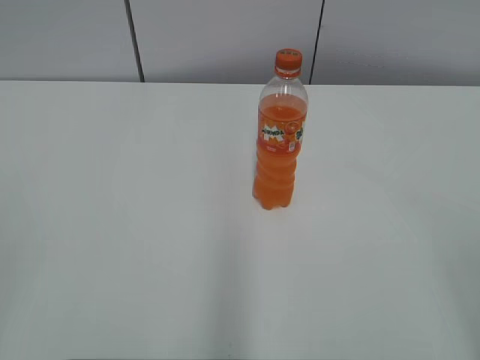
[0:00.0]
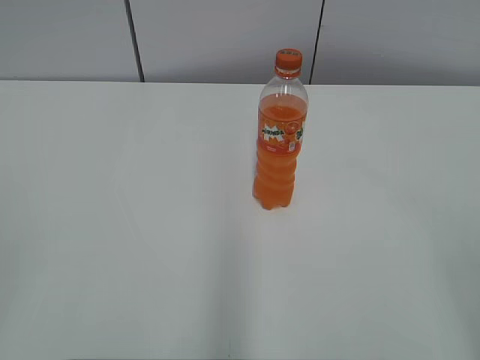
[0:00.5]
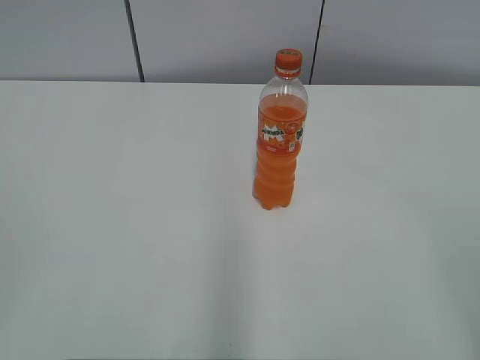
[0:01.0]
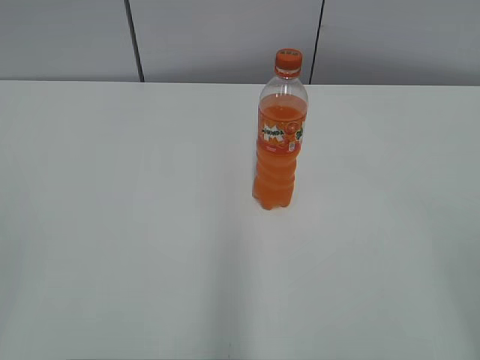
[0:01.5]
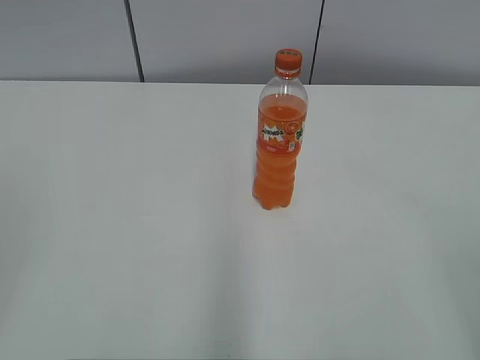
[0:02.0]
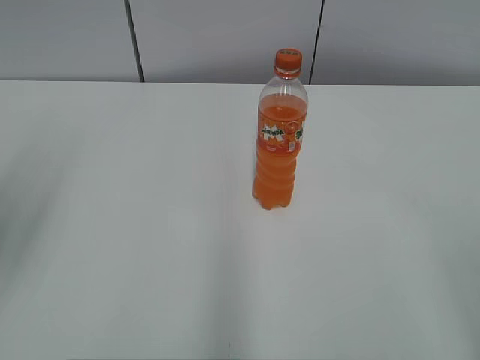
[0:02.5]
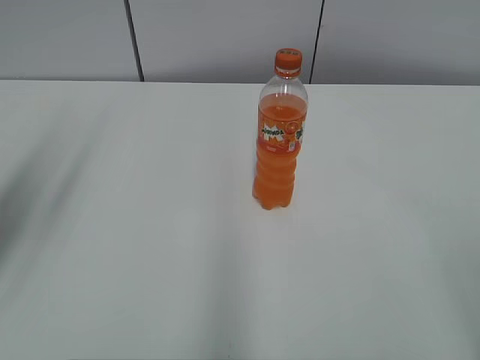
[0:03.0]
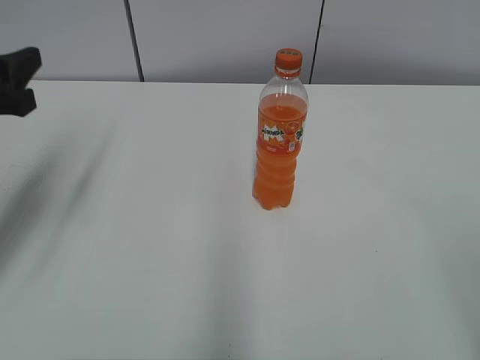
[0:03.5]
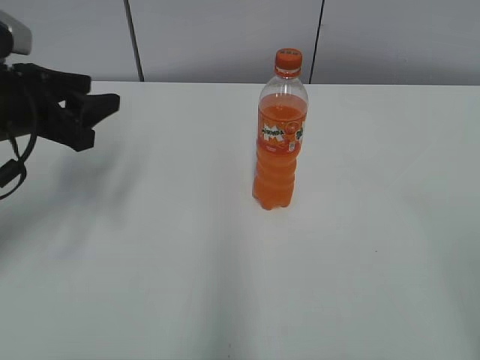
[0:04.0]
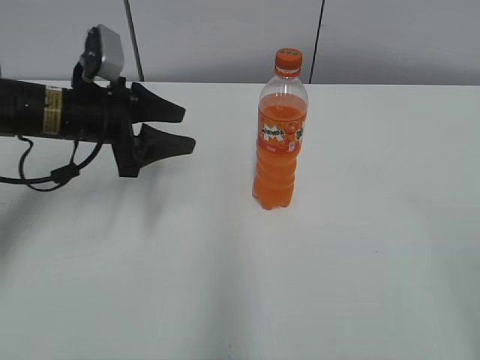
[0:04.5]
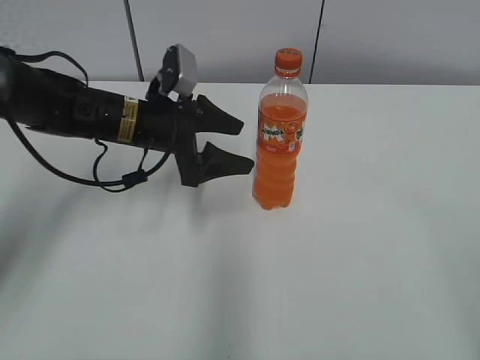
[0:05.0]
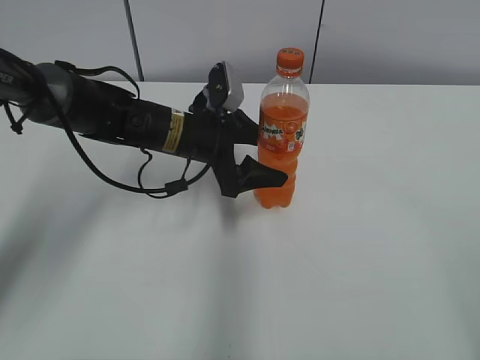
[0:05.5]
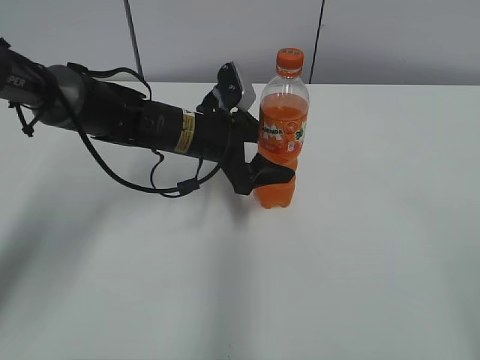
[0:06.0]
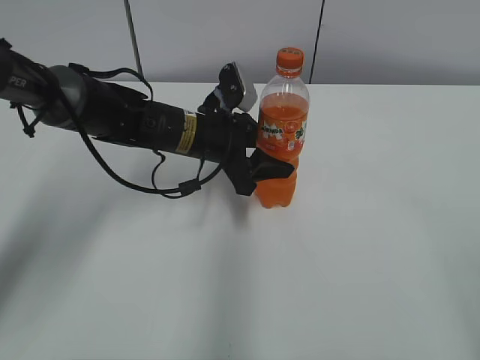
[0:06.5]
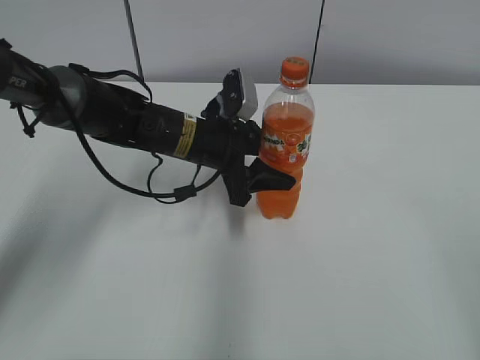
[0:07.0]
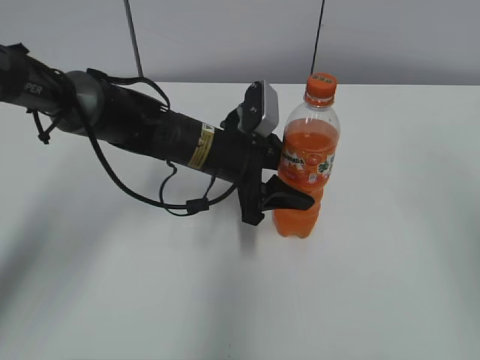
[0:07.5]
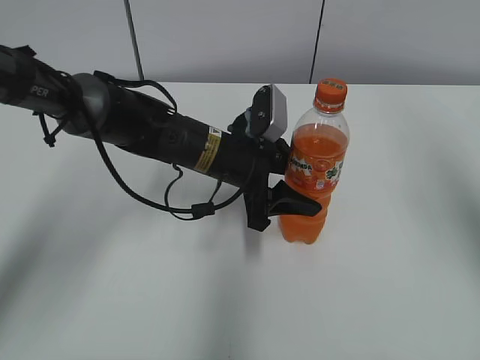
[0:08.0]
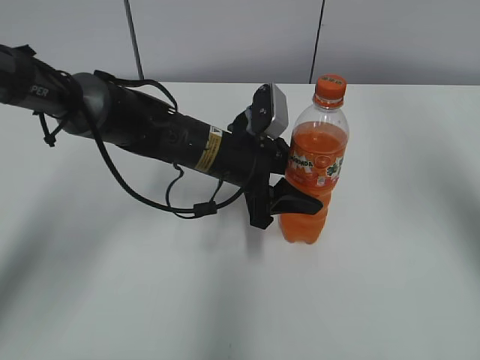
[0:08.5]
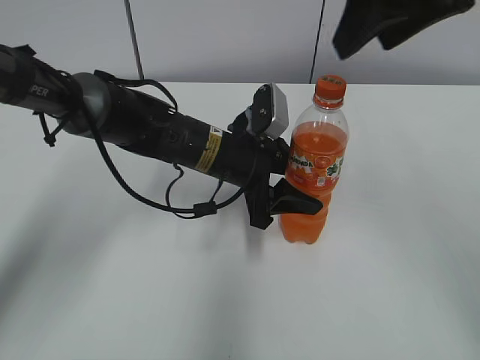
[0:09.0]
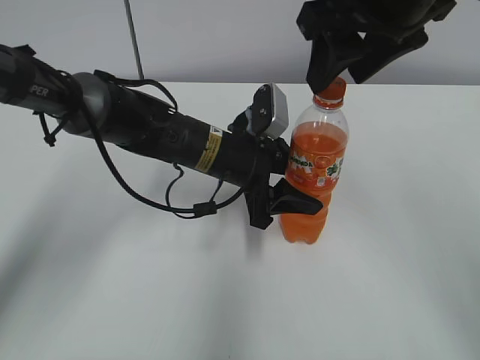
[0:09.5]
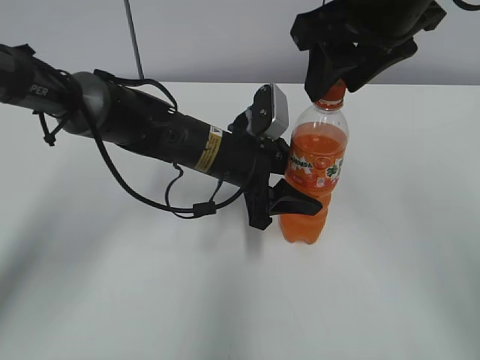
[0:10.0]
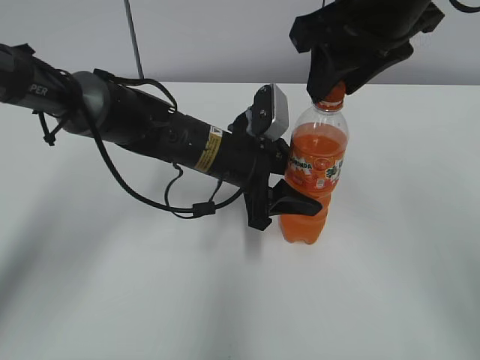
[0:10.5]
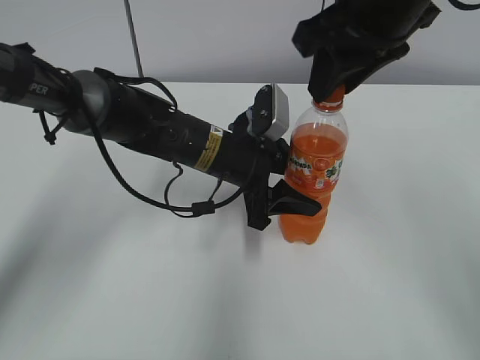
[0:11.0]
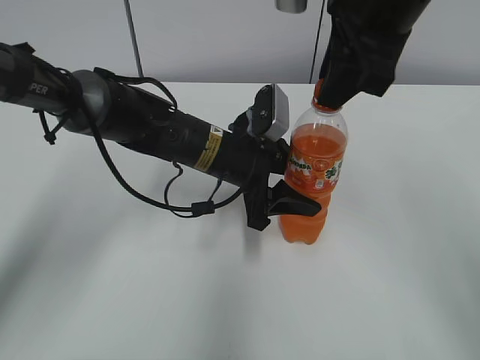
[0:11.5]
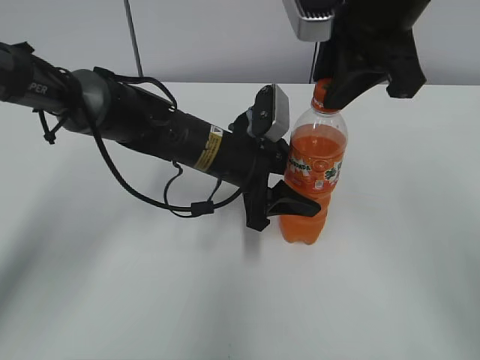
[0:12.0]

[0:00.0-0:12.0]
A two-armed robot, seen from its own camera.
Step, 0:00.0 to 0:06.5: Grab the Mirinda with the left hand.
Step, 0:07.0 to 0:08.0: Move the Mirinda from left to right.
0:02.0 to 0:04.0: The left gripper goes some 30 cm forward and downward.
0:04.0 to 0:06.0: The left gripper is displaced to the right, downward and forward by approximately 20 cm, and opens its fingers.
0:06.0 to 0:08.0: The right gripper is displaced forward and upward by roughly 25 cm, and closes, while the left gripper changes place by some 5 cm, and closes up.
0:08.0 to 0:10.0: The right gripper travels to the left and forward by about 20 cm.
0:10.0 to 0:12.0: The right gripper closes.

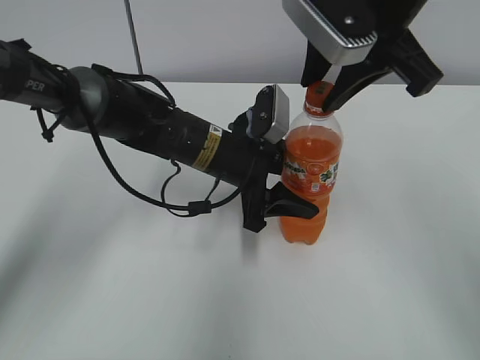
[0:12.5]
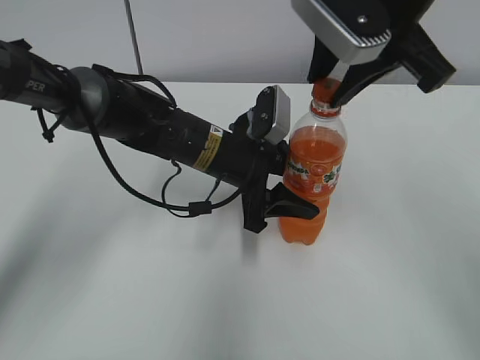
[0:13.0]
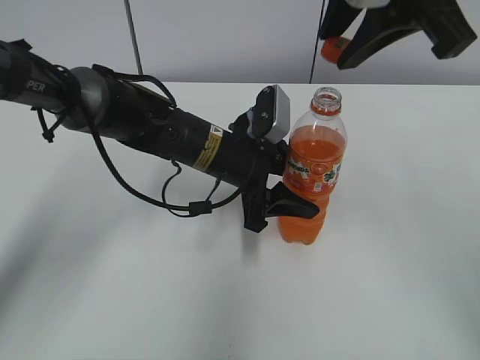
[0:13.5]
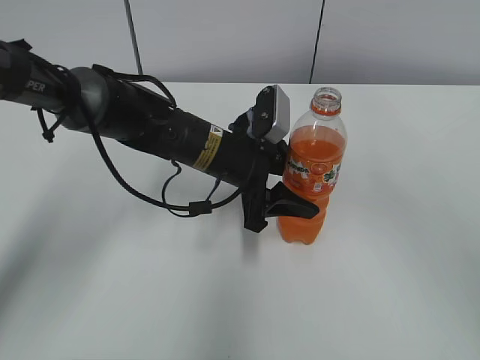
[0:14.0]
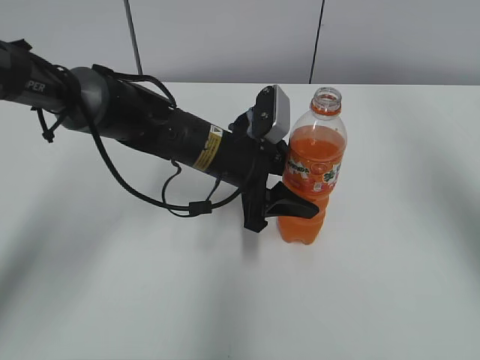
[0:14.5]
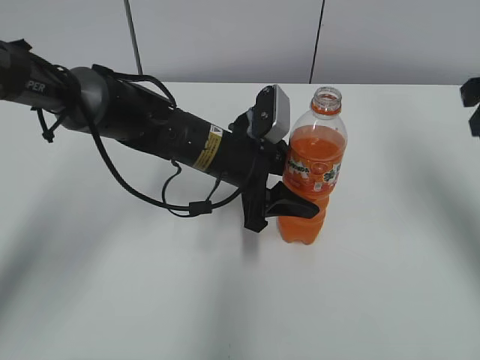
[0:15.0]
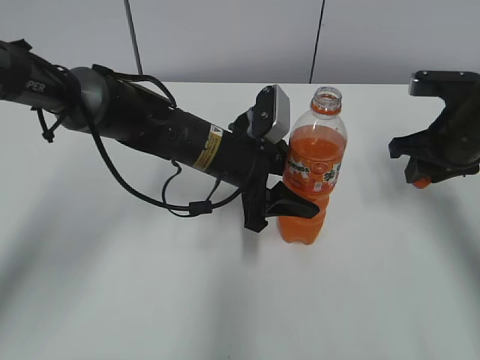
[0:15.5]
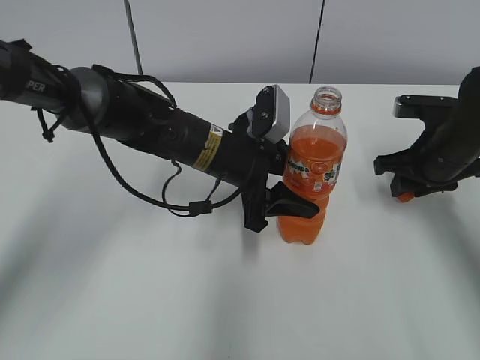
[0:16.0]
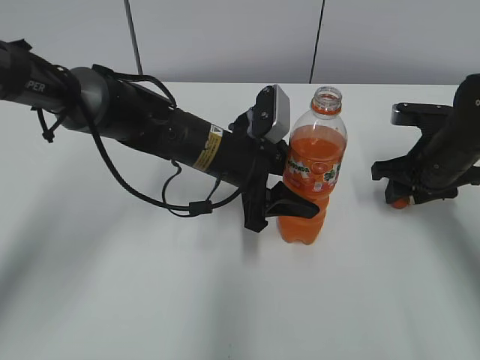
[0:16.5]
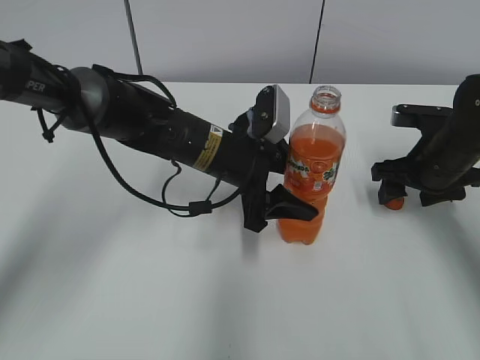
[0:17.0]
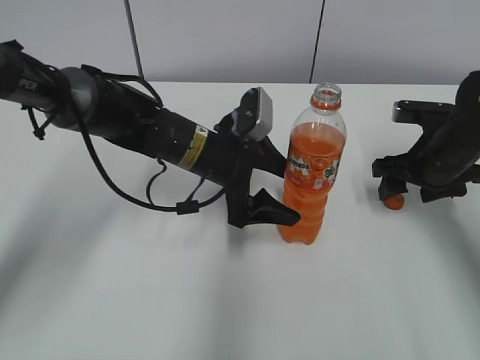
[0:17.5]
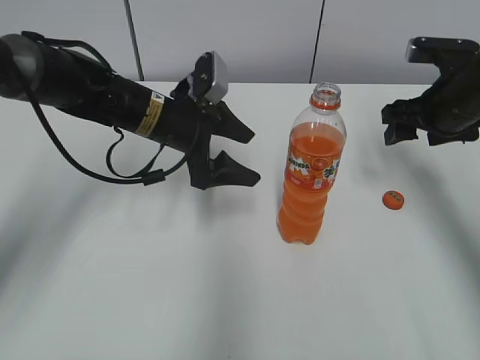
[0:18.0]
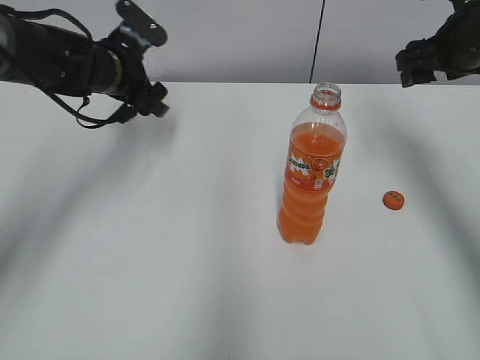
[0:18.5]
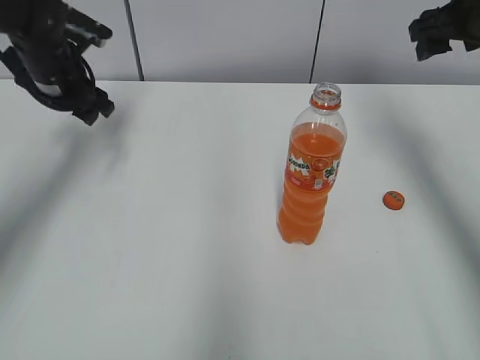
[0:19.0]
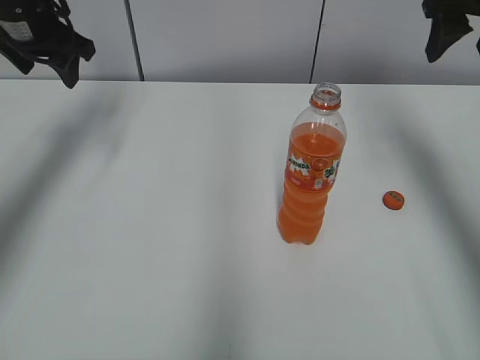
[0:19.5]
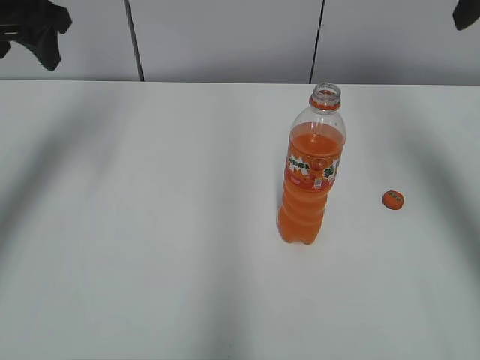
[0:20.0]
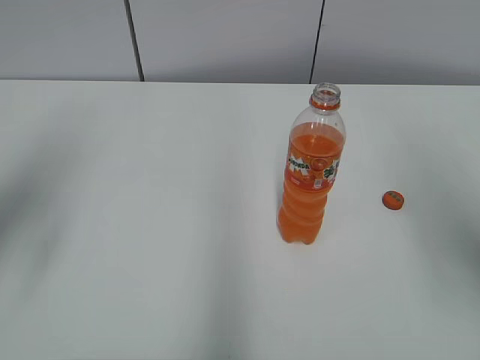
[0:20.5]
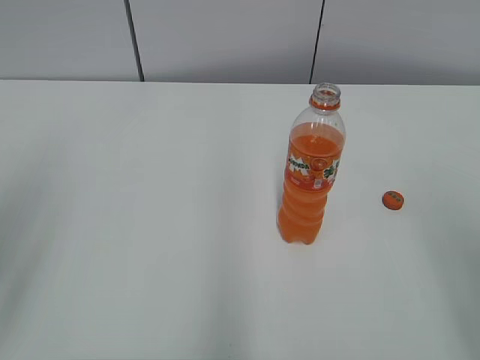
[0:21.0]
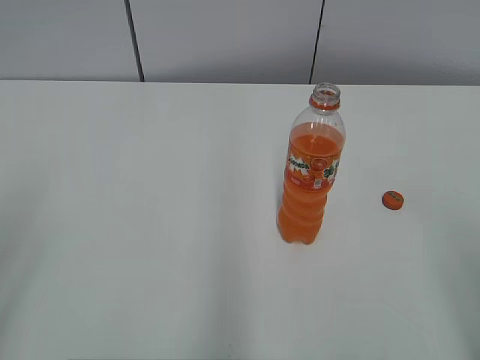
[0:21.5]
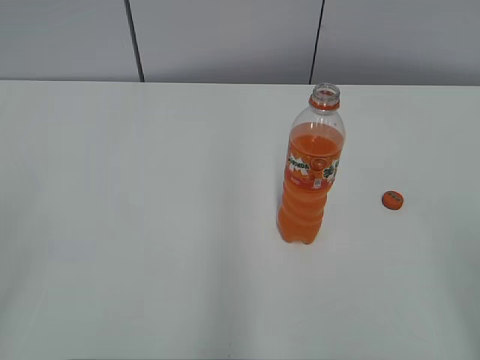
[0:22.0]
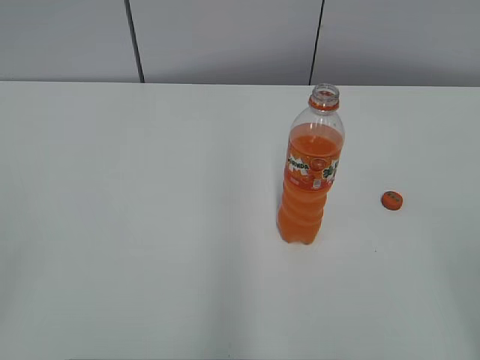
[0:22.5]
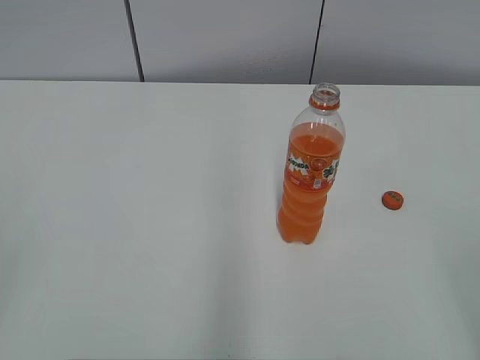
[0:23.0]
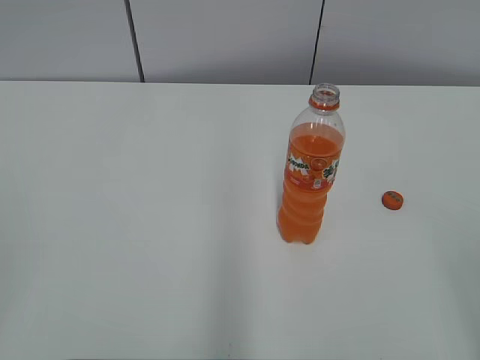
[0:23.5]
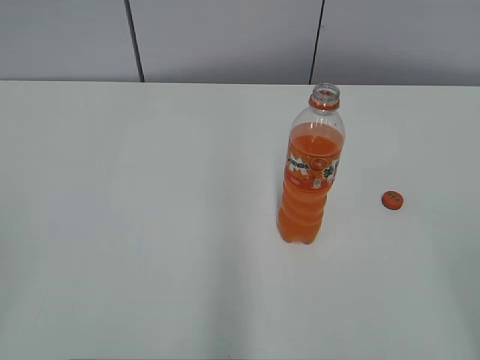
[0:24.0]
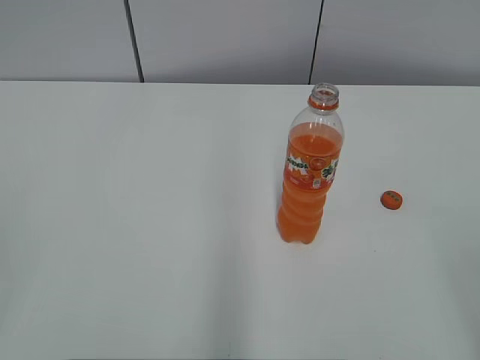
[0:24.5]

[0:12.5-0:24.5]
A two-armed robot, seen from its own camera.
Step, 0:13.5 to 0:16.5: Place the bottle cap on the right.
0:12.5 to 0:14.5: The right gripper goes some 15 cm to the right and upward.
0:14.5 to 0:16.5: The right gripper moves downward, roughly 30 cm, and opens.
0:16.5 to 0:18.5: The right gripper goes some 15 cm upward, and opens; the left gripper heads to the left and forward, covering about 20 cm, and opens its fingers.
0:18.5 to 0:20.5: The right gripper shifts about 25 cm backward; the left gripper goes roughly 30 cm backward, upward and to the left.
0:20.5 to 0:22.5: Both grippers travel together backward, about 20 cm.

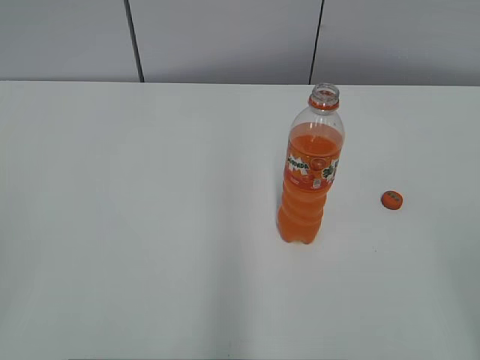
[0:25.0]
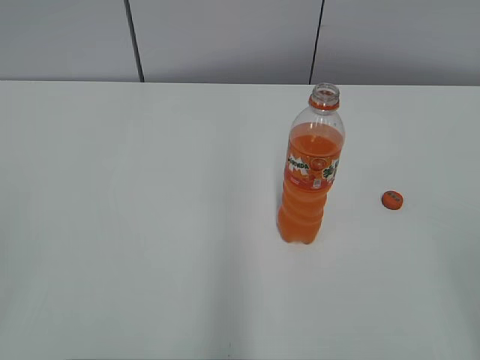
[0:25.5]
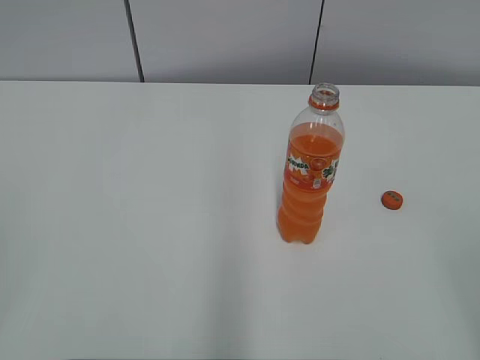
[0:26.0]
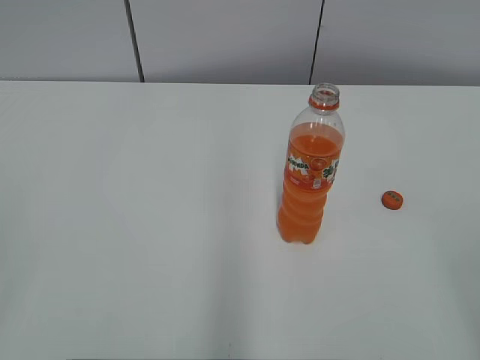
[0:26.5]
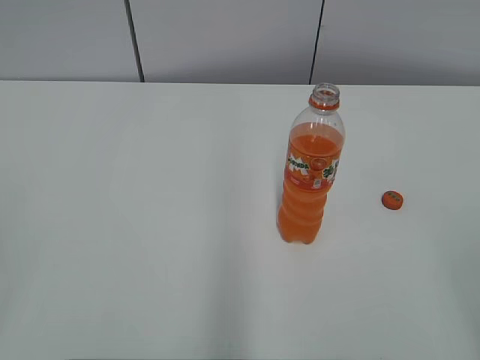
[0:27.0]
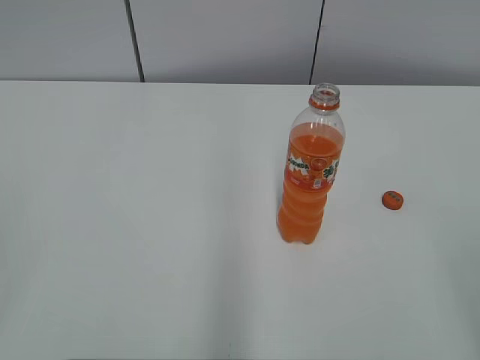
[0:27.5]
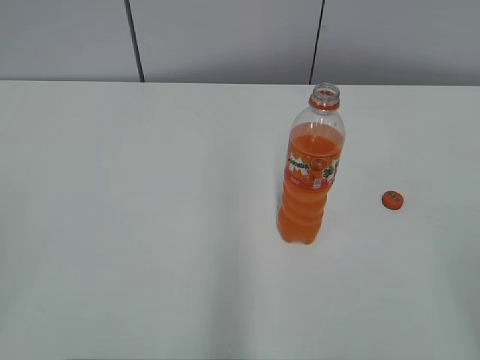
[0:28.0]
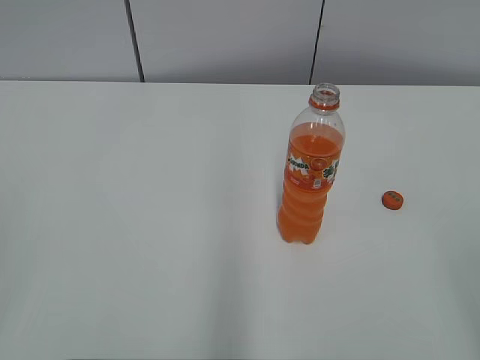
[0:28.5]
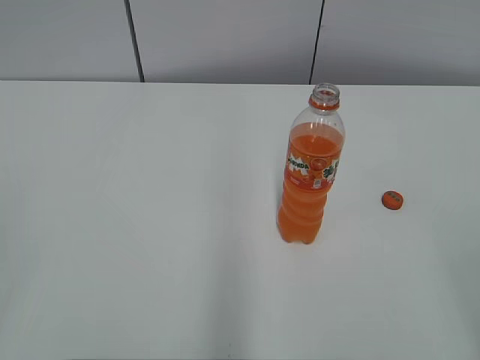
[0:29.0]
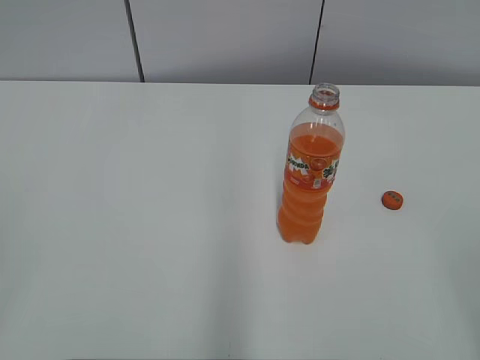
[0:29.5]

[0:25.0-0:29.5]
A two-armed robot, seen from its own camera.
0:25.0 to 0:29.5: Both grippers stay about where they are.
